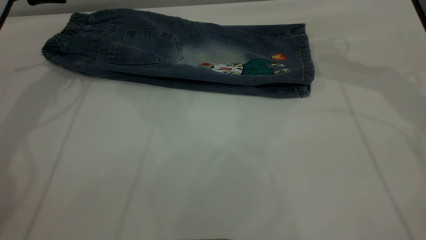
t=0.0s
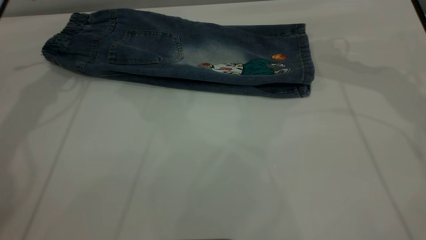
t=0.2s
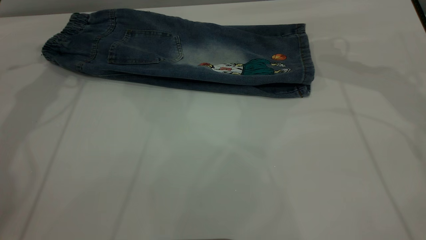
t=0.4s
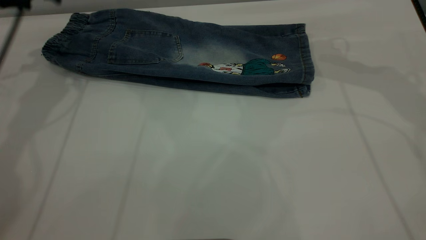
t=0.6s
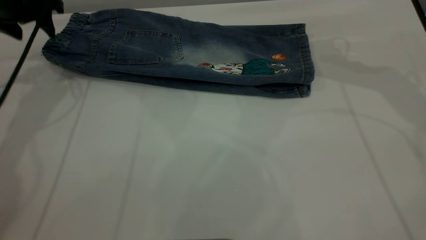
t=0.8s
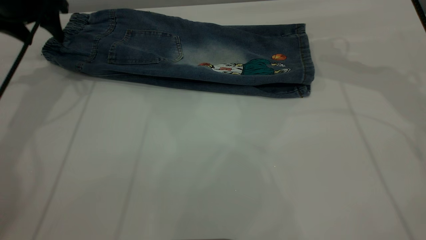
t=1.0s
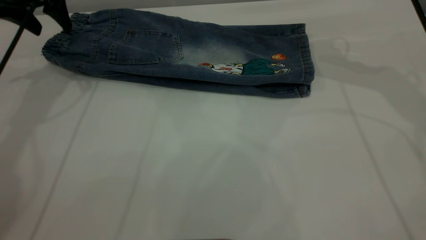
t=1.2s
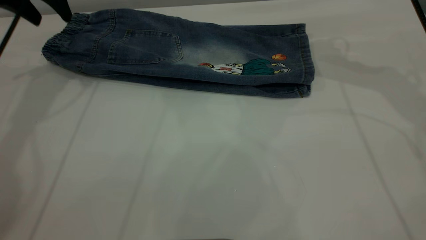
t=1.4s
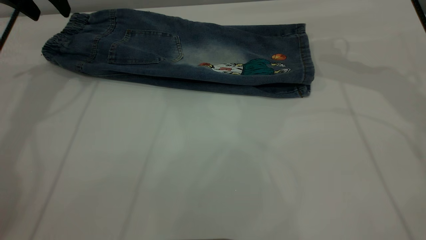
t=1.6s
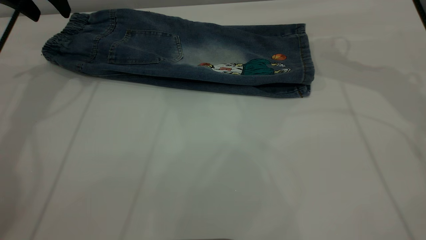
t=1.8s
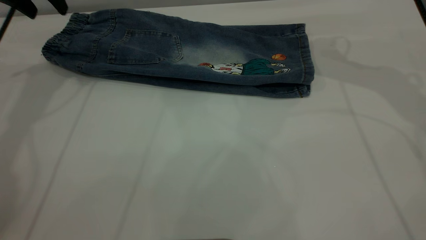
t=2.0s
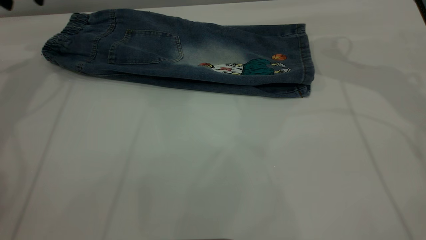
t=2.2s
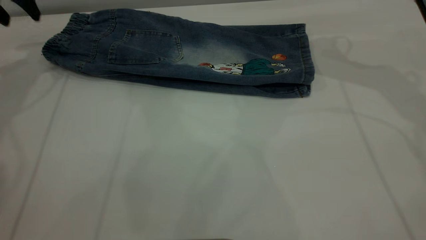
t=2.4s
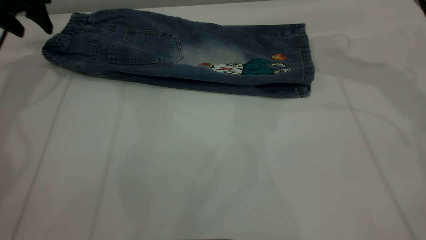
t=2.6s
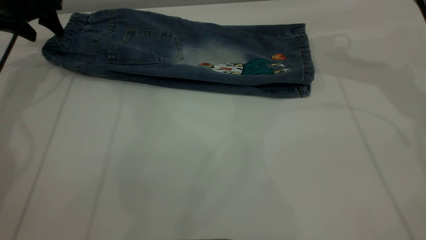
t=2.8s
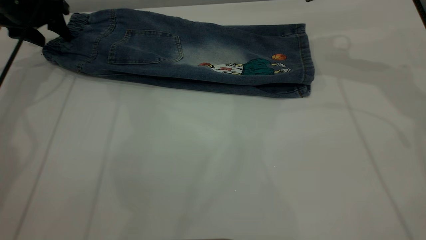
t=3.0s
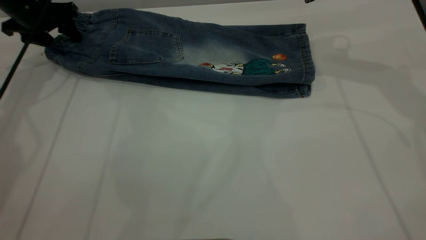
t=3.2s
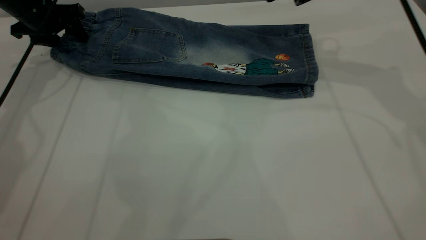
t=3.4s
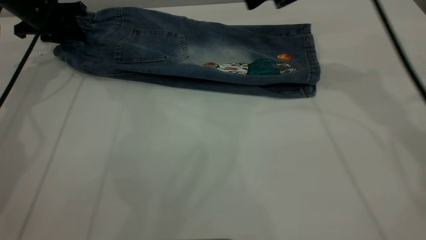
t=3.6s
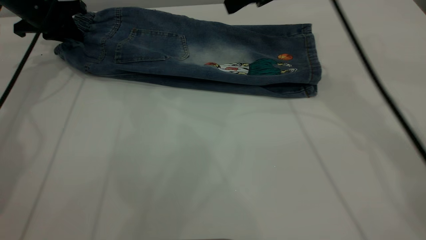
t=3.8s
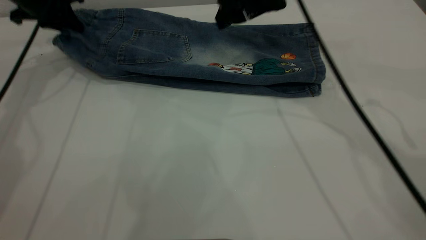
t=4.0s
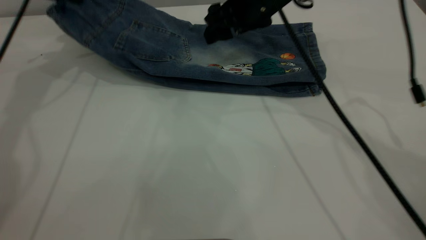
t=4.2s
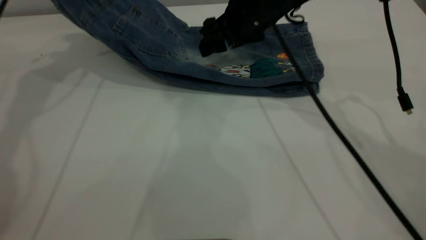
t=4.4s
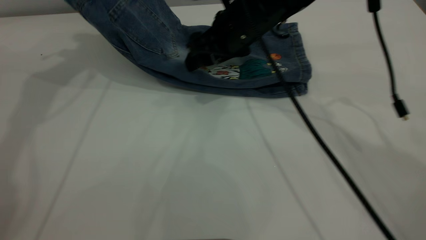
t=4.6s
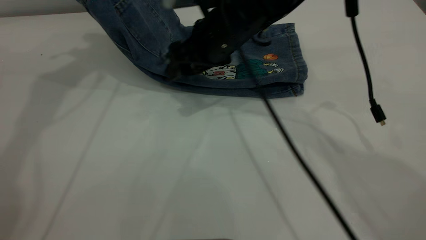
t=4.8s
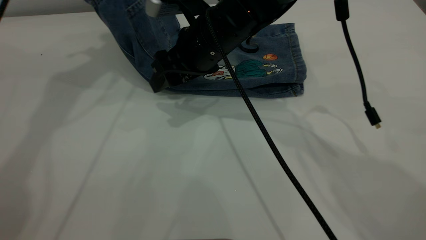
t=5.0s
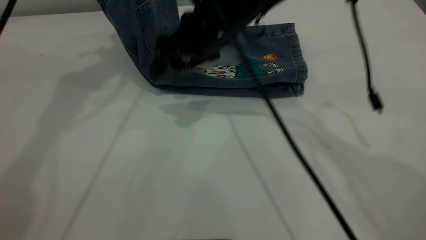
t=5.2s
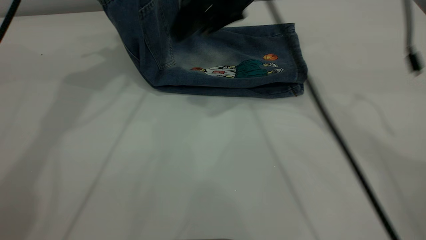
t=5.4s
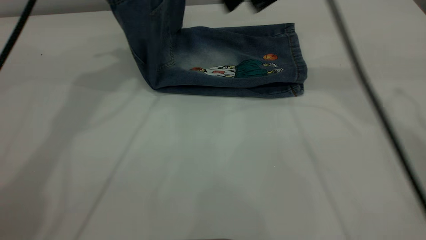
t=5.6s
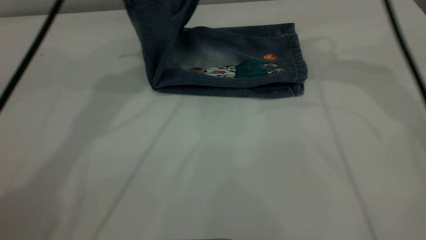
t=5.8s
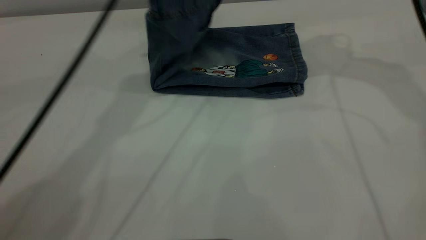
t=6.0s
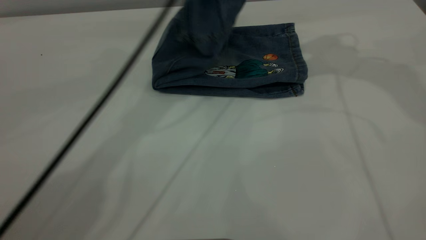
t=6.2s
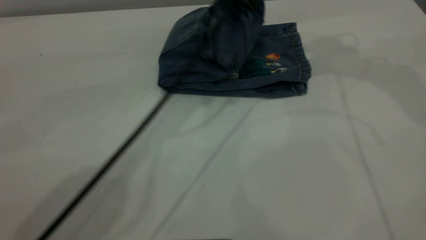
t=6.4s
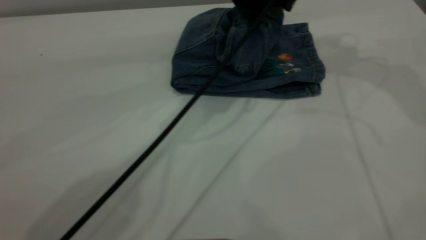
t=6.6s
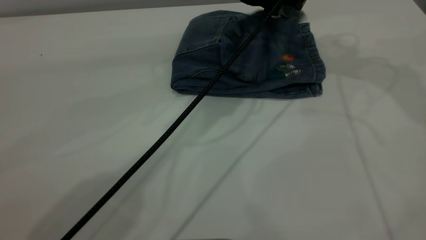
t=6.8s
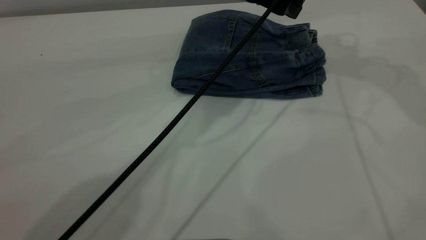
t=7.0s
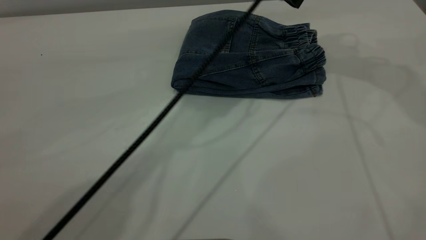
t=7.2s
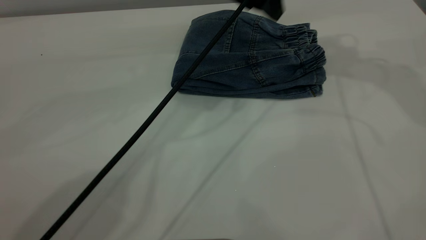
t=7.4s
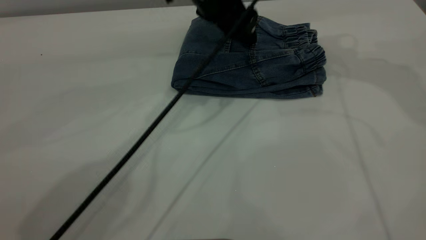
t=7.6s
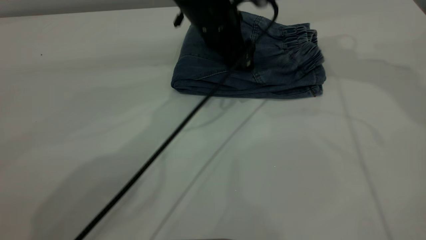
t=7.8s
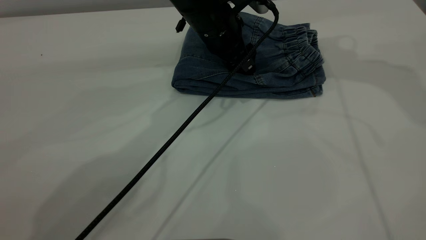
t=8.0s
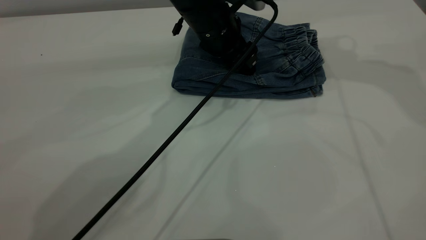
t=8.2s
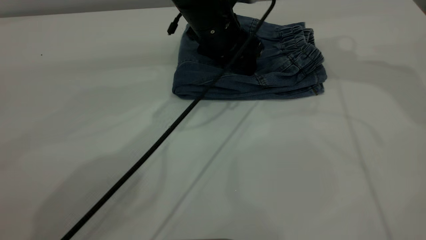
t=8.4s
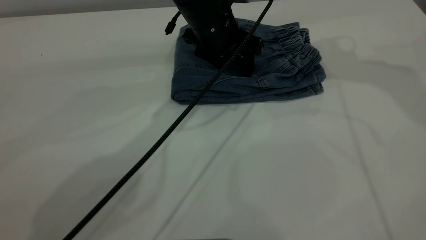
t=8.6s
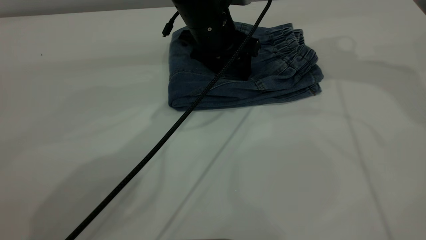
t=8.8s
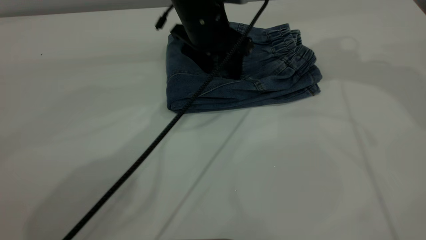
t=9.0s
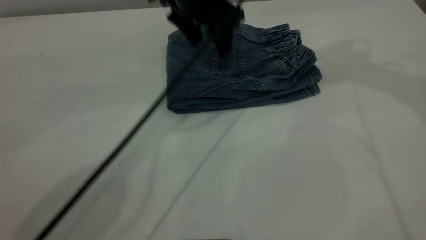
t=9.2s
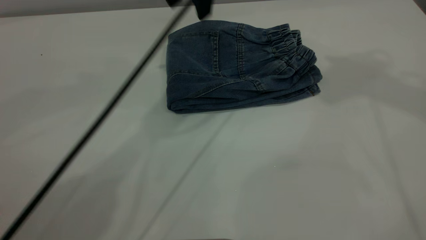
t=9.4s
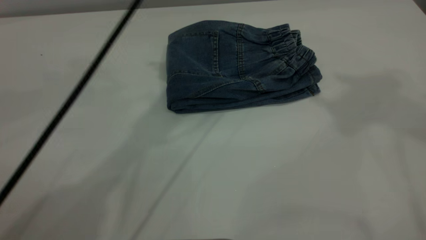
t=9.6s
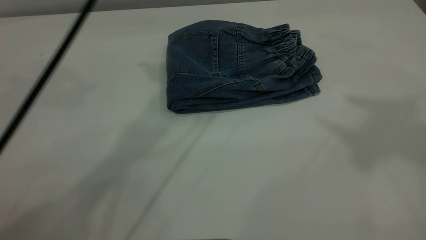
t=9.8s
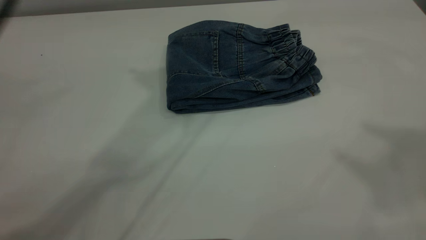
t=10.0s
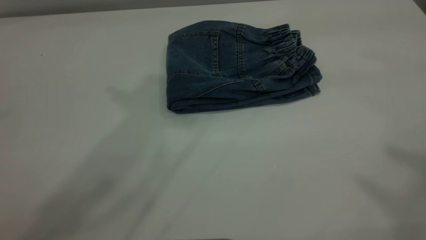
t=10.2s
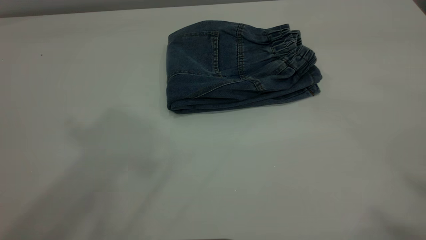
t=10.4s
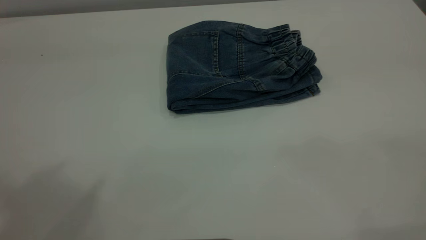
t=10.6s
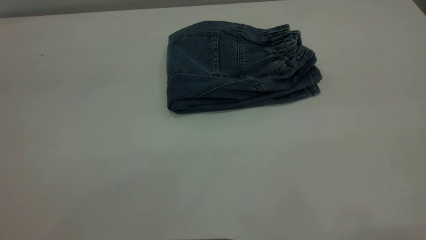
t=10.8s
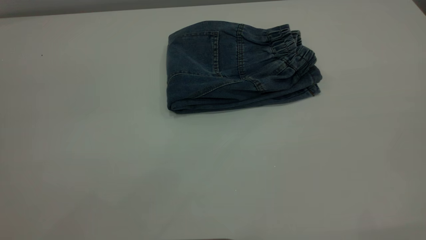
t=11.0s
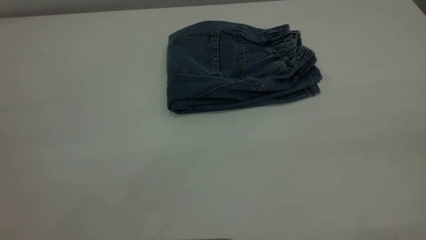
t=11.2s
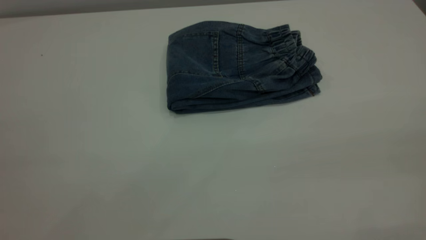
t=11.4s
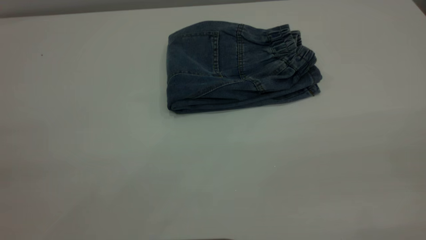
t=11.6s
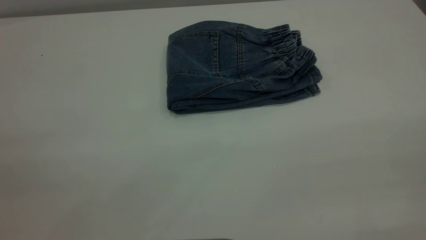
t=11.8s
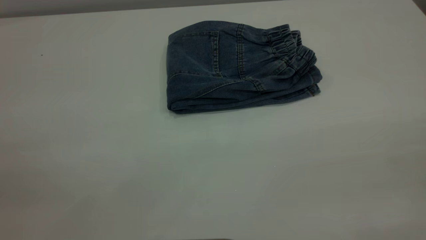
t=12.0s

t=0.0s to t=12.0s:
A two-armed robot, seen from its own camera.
Step, t=0.0s to t=7.0s: Fold the pants from left to right.
t=1.6s to t=3.0s: The left gripper shifts approximately 10 cm downward and to the left.
t=3.0s to t=4.4s: The right gripper is displaced to the left and downward by some 15 cm. Meanwhile the left gripper shifts roughly 15 cm upward and to the right, and closes.
t=4.4s to t=6.0s: The right gripper travels upward and to the right by about 20 cm. The left gripper travels to the right by about 20 cm.
t=6.0s to t=7.6s: The left gripper moves downward and to the right, roughly 15 cm, and opens its fingers.
t=9.0s to t=10.4s: The right gripper heads backward and upward, covering roughly 40 cm. Meanwhile the left gripper is displaced upward and backward by roughly 40 cm.

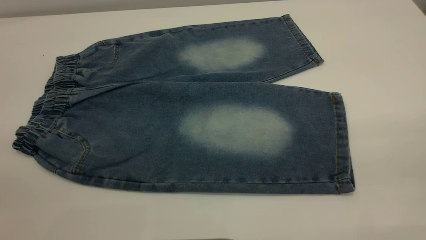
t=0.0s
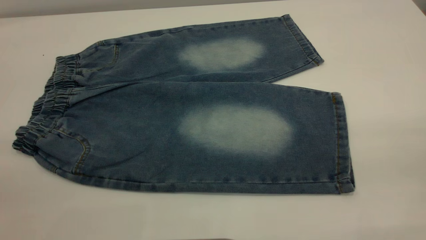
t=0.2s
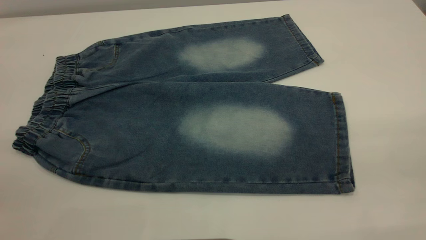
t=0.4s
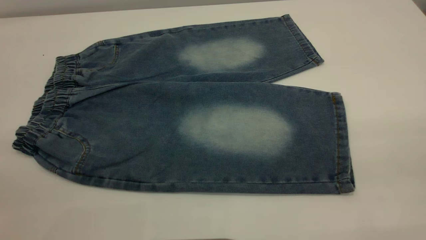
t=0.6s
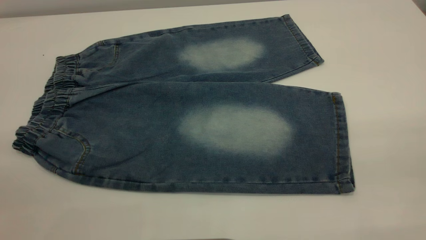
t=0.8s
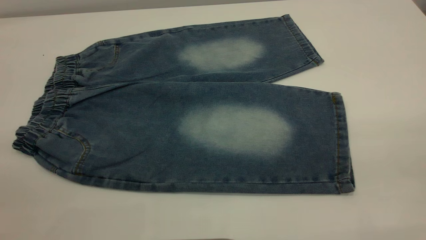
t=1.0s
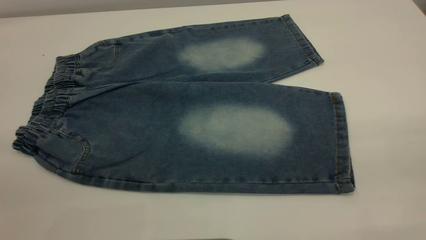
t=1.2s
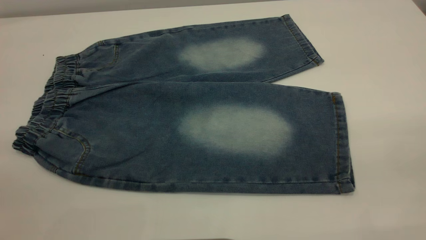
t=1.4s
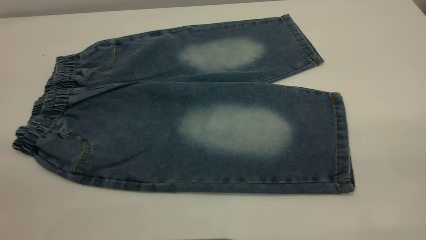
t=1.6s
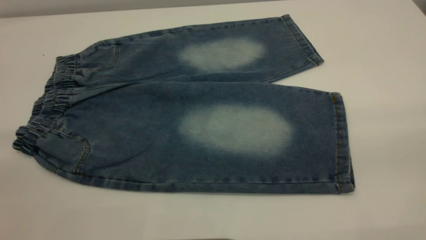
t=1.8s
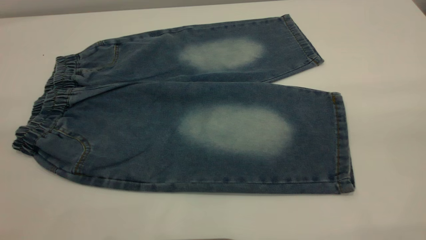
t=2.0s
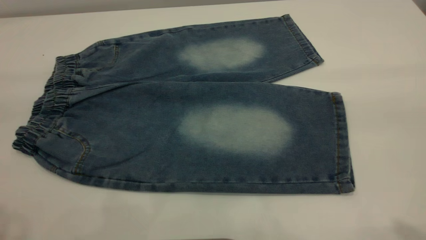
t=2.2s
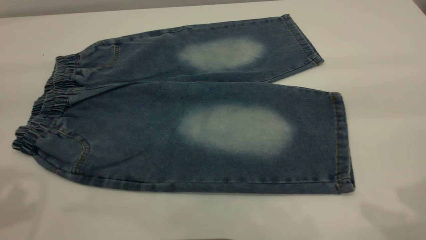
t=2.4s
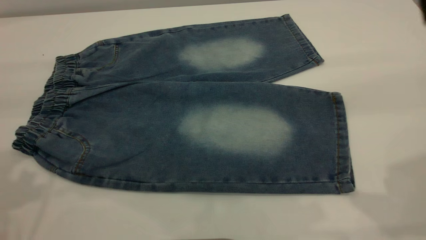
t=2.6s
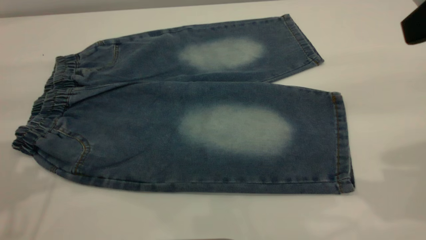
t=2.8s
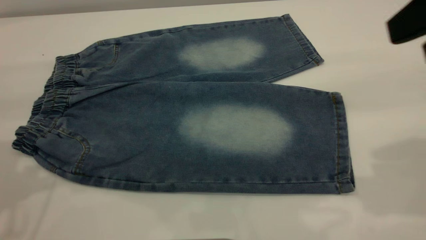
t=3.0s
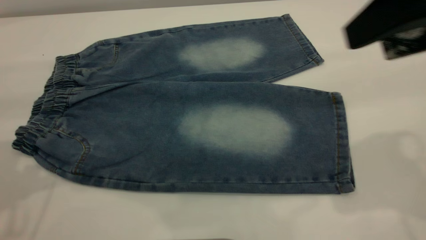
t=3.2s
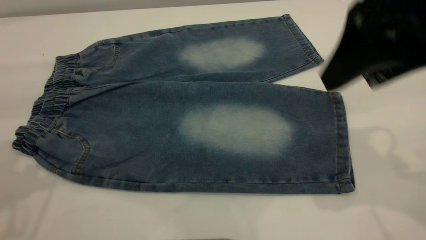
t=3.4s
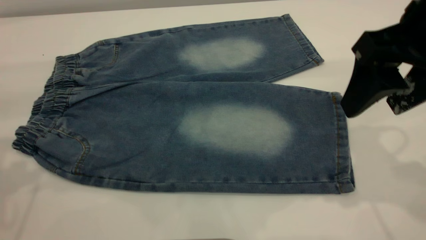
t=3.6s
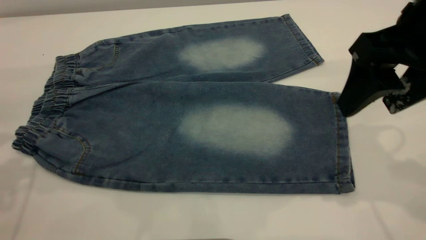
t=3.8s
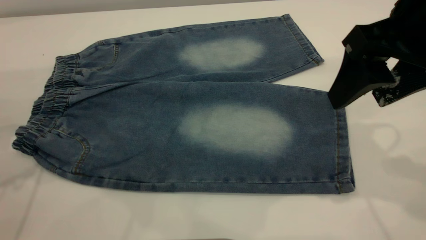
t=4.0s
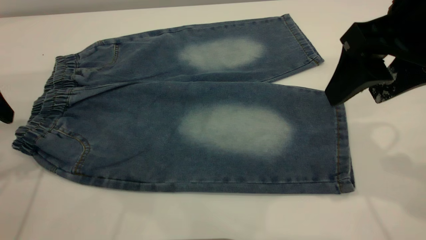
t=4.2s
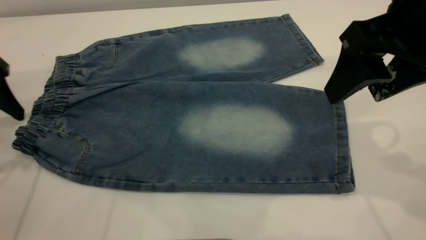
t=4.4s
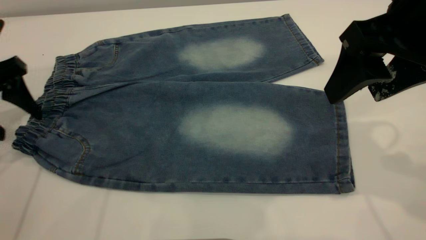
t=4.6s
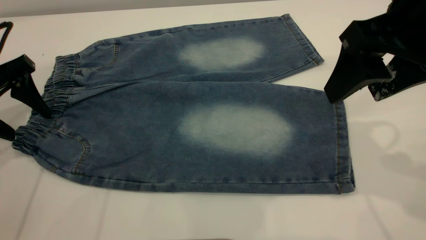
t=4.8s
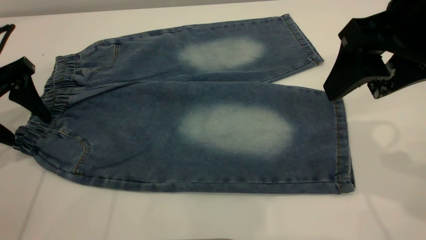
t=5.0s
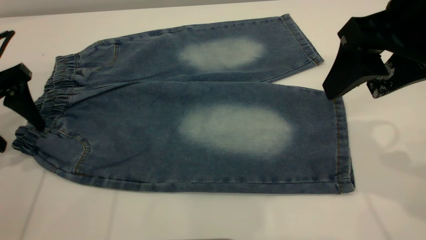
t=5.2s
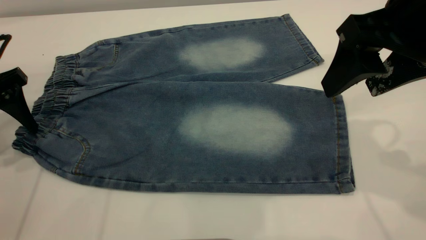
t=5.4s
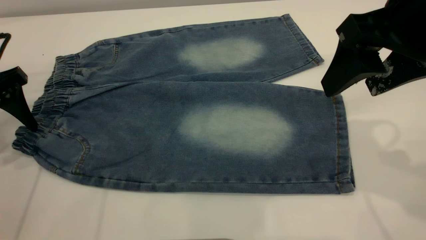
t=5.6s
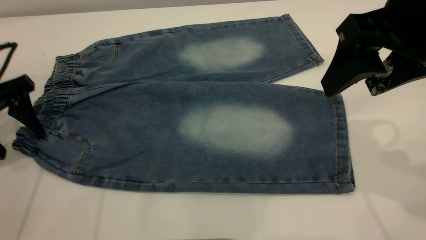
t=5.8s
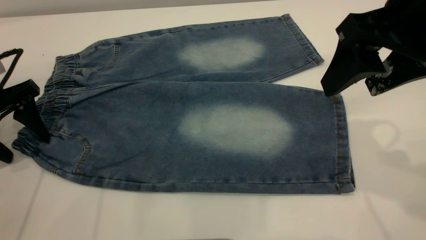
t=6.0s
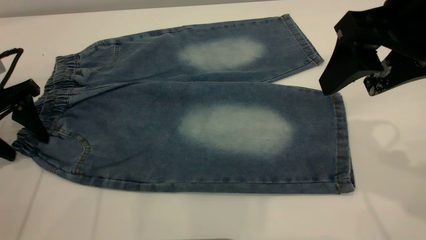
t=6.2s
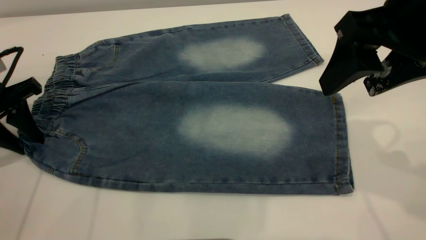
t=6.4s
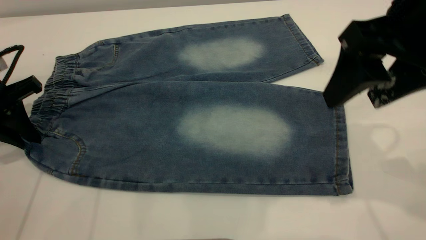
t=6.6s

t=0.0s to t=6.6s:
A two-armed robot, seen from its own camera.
t=0.0s to t=1.6s: Both grippers stay about where they are.
t=1.6s to t=3.2s: The right gripper travels forward by roughly 20 cm.
t=3.2s to t=5.0s: The right gripper shifts by about 5 cm. The left gripper is displaced downward and forward by roughly 15 cm.
t=5.0s to t=6.6s: The left gripper closes up.
